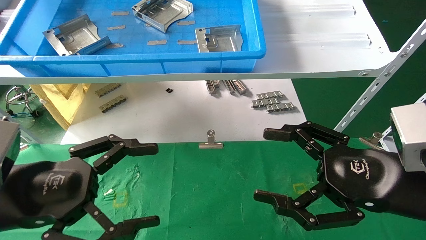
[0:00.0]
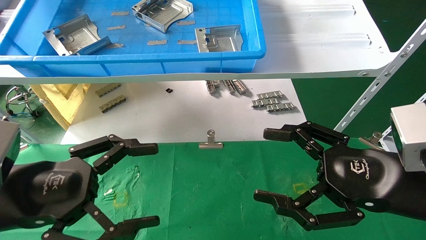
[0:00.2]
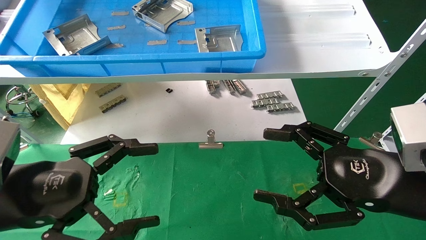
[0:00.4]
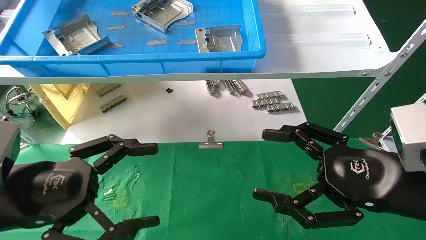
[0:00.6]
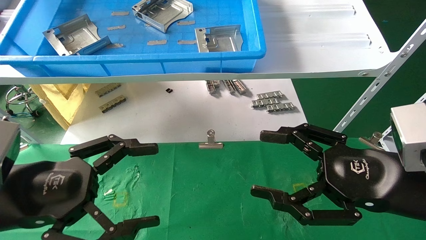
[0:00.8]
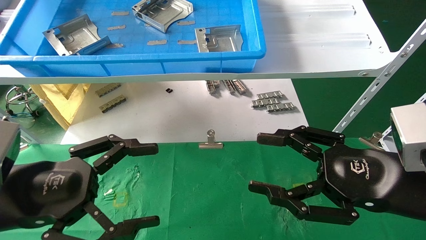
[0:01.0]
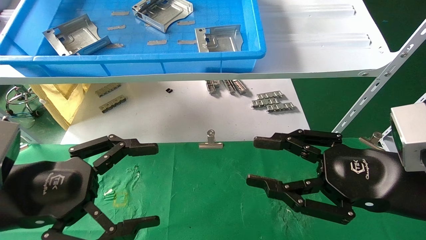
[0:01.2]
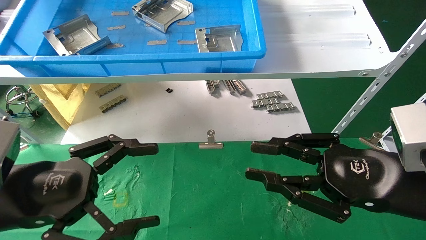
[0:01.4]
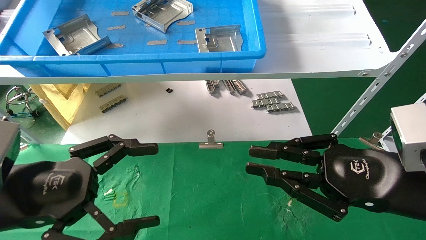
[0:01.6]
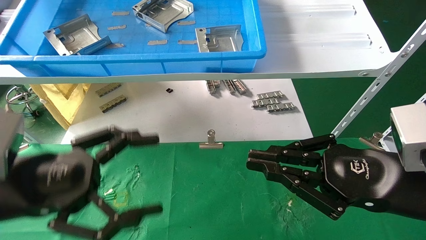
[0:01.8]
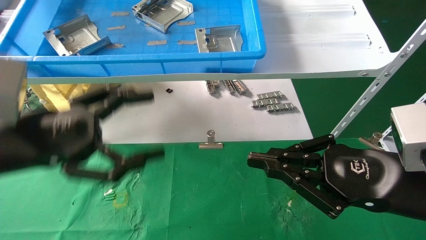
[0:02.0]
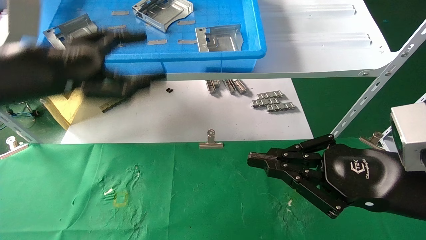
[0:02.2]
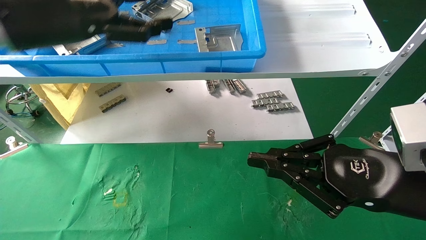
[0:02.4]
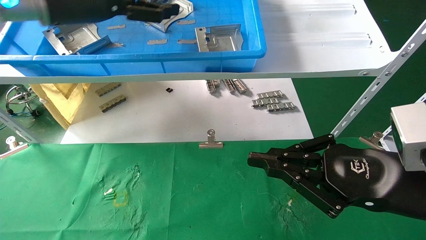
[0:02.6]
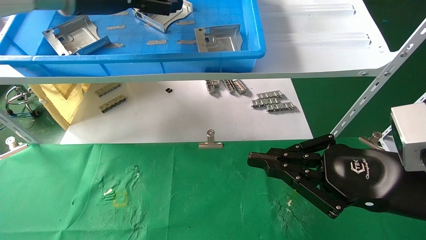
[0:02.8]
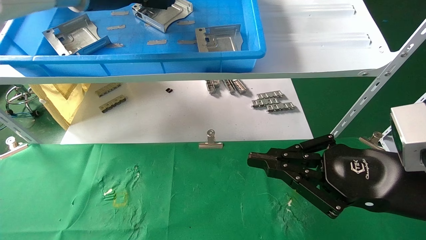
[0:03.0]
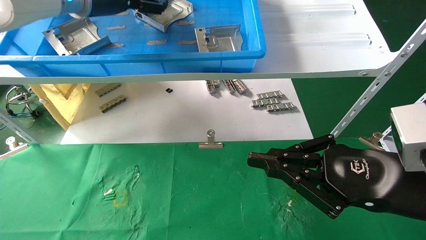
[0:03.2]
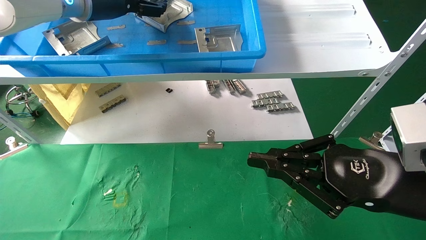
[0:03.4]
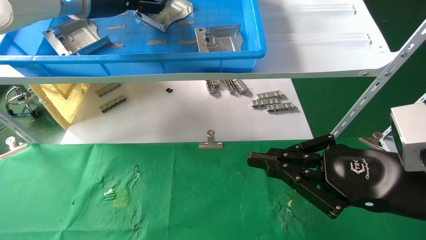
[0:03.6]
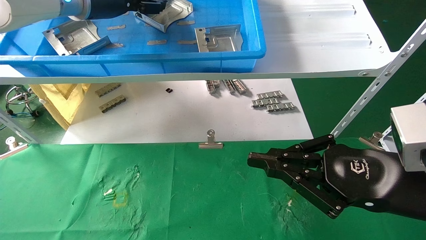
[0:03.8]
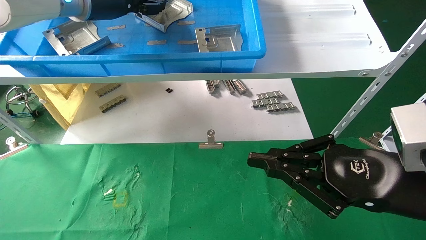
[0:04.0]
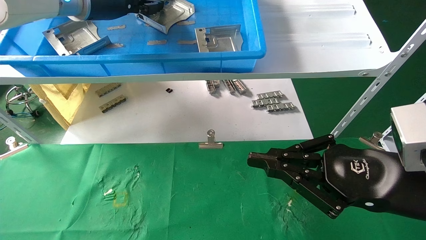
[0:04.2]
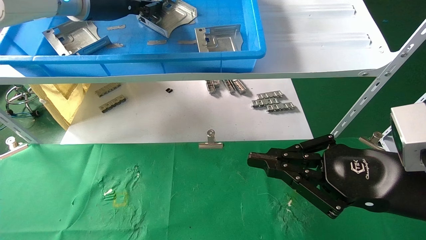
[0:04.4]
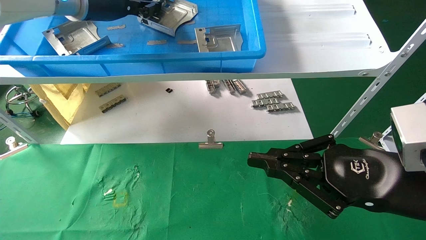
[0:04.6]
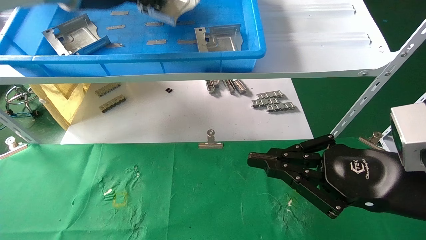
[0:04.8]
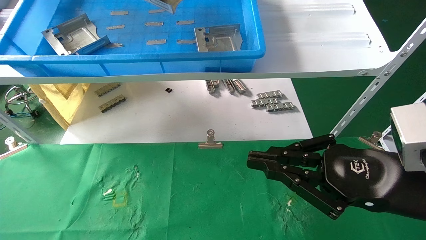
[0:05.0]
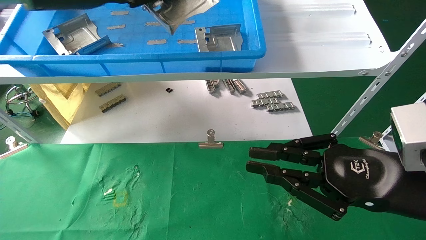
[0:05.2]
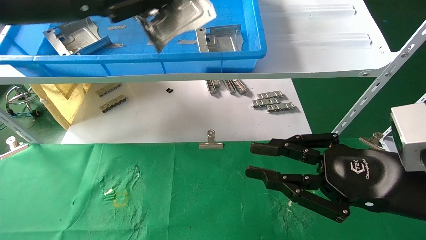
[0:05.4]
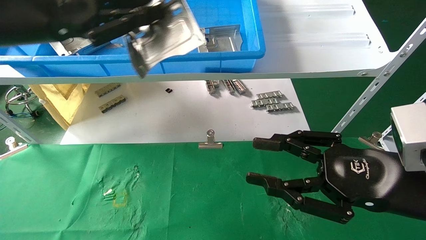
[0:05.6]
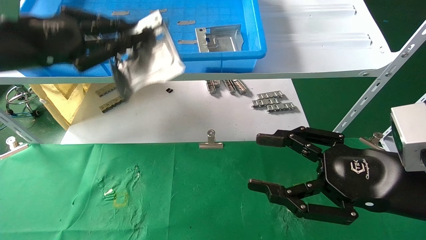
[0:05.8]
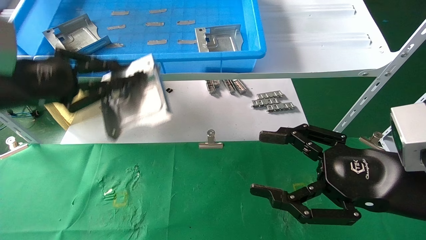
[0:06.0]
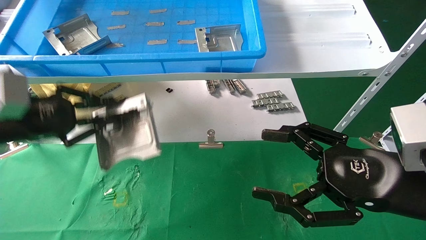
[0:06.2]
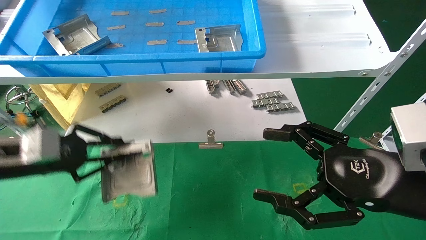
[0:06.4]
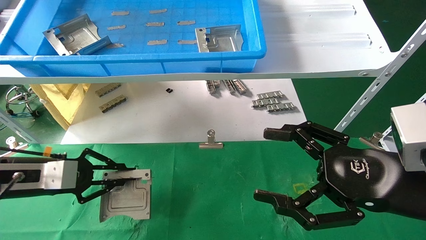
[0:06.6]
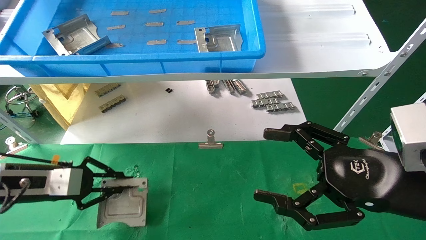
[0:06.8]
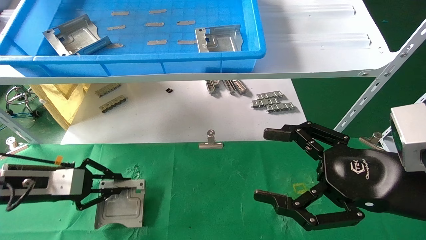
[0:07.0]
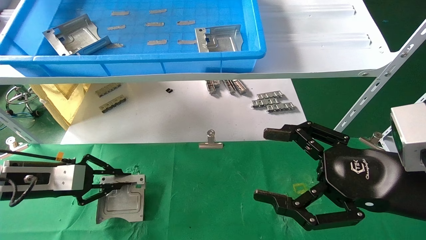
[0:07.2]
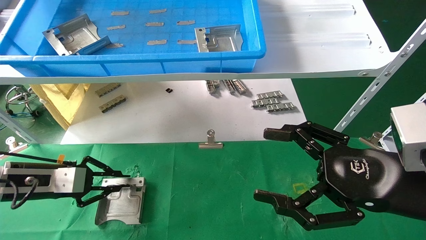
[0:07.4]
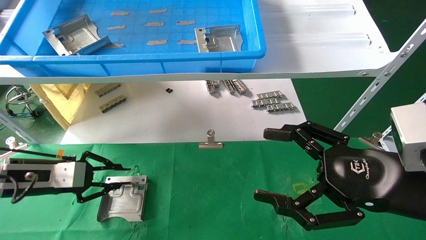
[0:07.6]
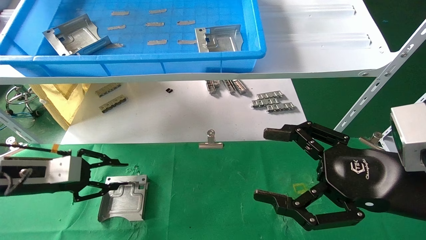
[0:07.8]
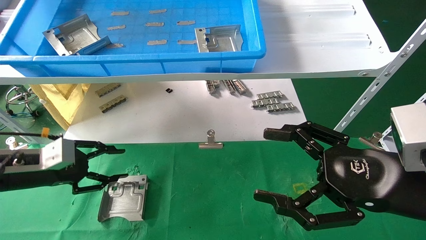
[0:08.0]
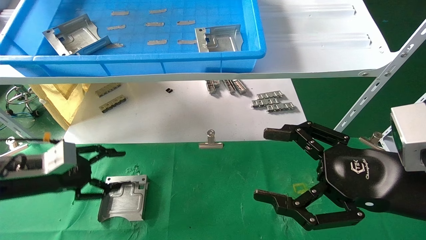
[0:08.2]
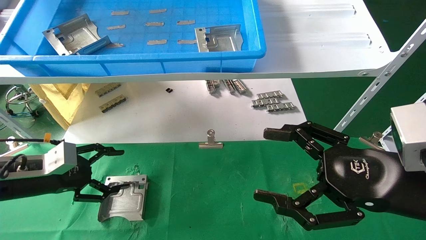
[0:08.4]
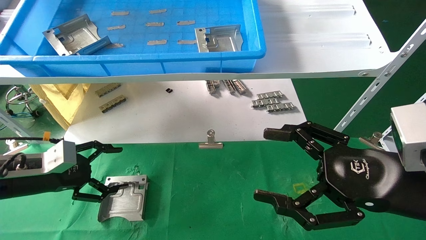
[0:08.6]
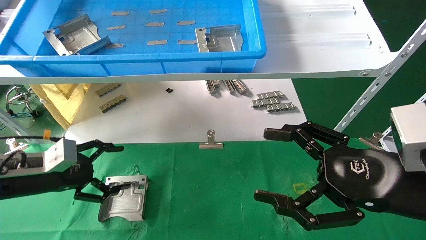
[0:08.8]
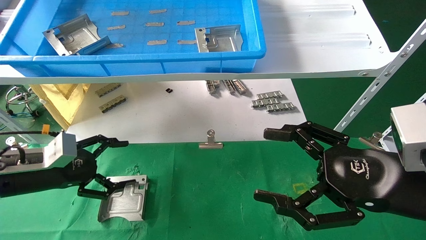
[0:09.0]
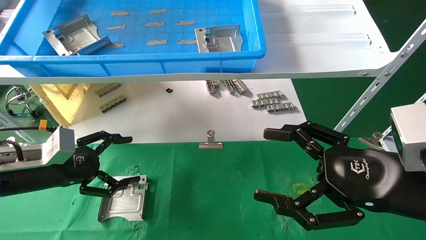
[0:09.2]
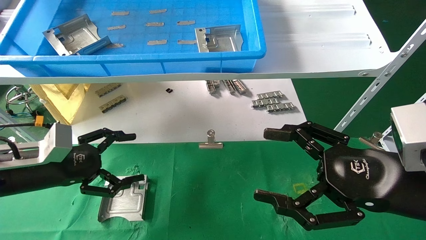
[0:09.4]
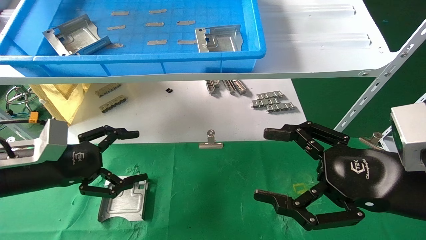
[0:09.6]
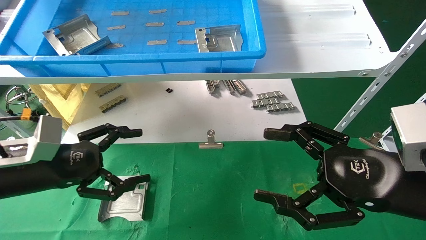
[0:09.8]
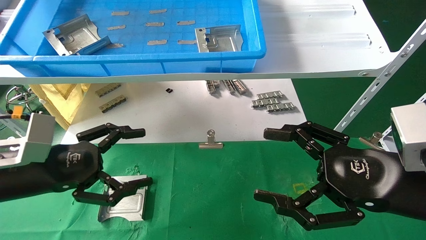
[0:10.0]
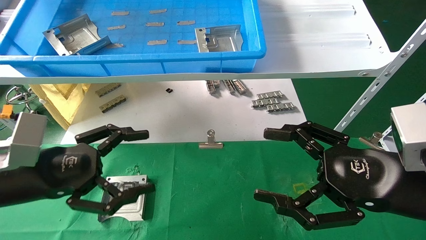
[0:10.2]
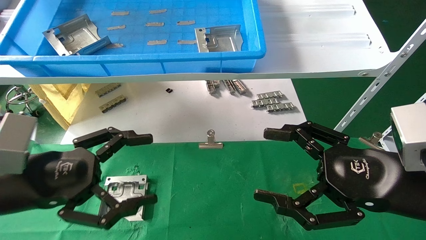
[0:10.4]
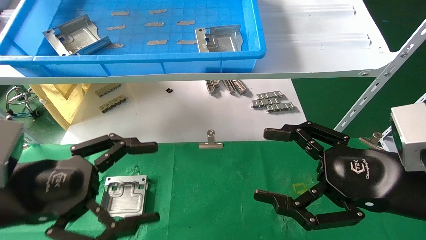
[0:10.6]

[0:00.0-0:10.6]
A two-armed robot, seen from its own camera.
Task of the whole recording: use the mechanical arm to pick up the parts and place them on the table.
Step, 2.2 to 4.4 s: Pick up the hard drive bracket from the feeding area.
Step, 4.6 to 7.6 s: Place the hard drive bracket into the box.
0.0 to 1.6 s: The right gripper closes its fingers.
1.6 to 3.0 s: The left gripper moves upward and forward, roughly 35 cm.
3.0 to 4.6 s: The left gripper closes.
4.6 to 6.0 s: The right gripper opens its fingers. The left gripper is displaced downward, backward and to the left by approximately 25 cm.
6.0 to 7.6 s: The left gripper heads downward, covering some 15 cm.
7.6 to 9.0 s: The left gripper opens.
9.0 to 10.6 s: The left gripper travels backward, to the right and upward by approximately 15 cm.

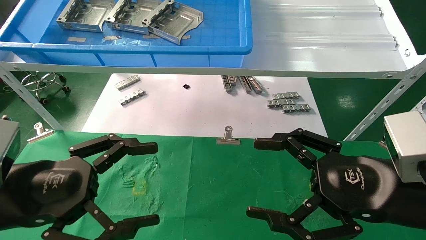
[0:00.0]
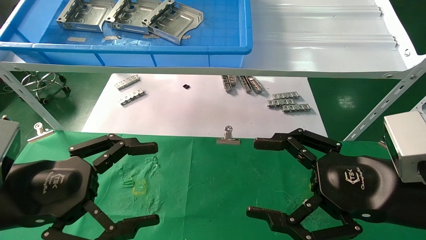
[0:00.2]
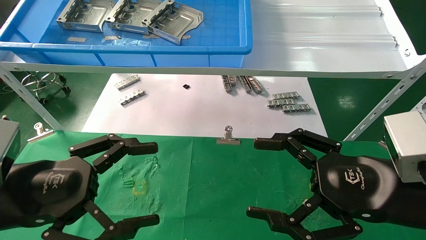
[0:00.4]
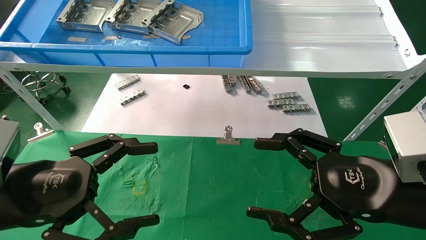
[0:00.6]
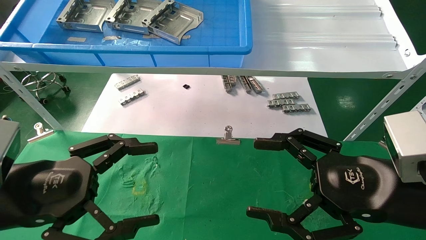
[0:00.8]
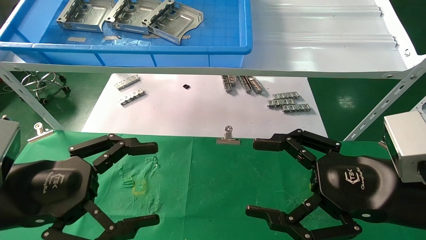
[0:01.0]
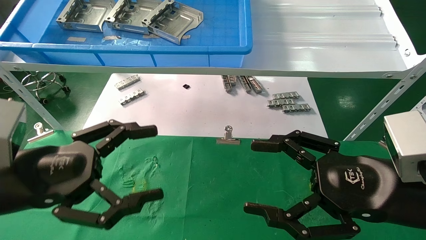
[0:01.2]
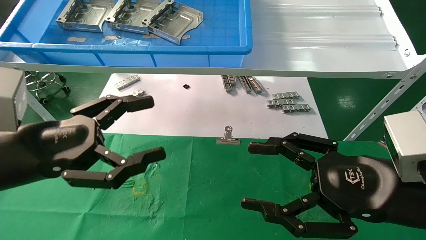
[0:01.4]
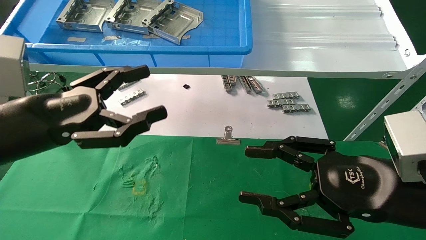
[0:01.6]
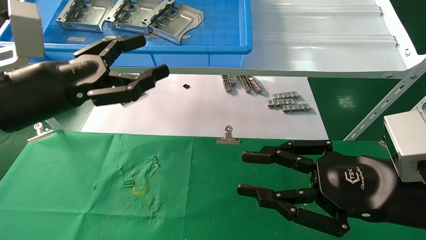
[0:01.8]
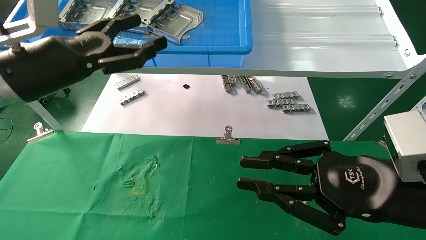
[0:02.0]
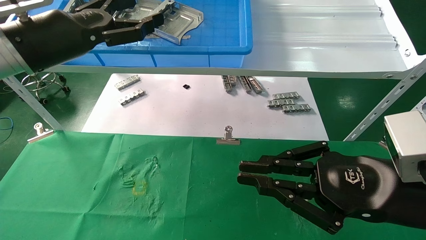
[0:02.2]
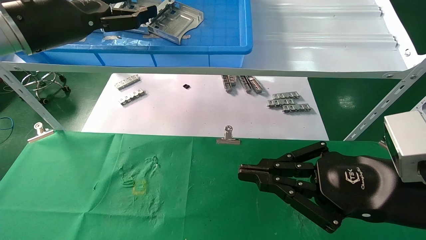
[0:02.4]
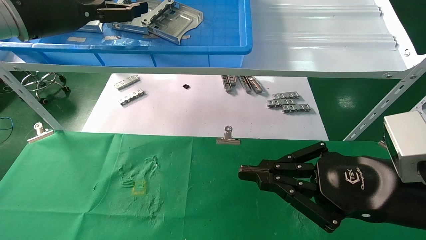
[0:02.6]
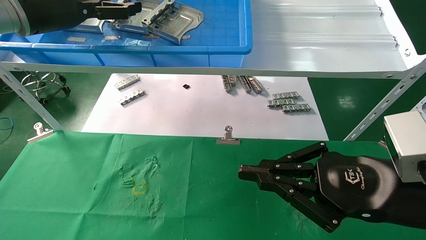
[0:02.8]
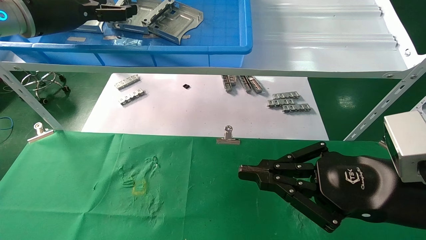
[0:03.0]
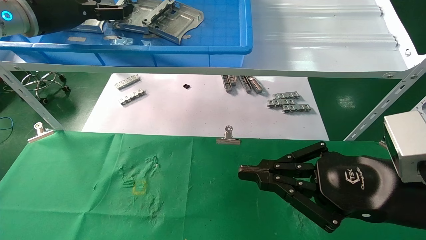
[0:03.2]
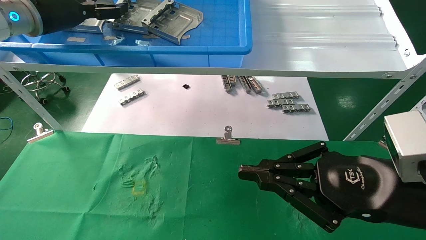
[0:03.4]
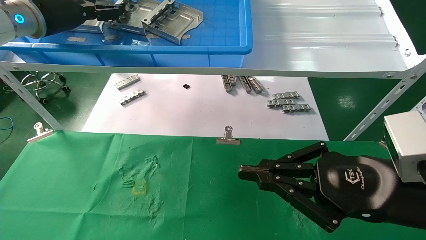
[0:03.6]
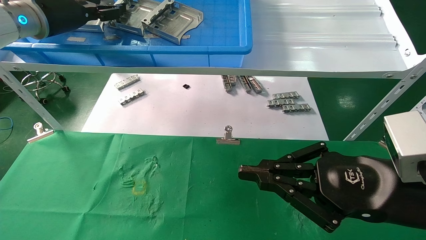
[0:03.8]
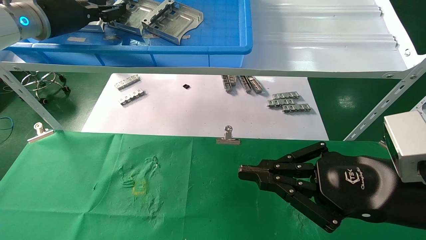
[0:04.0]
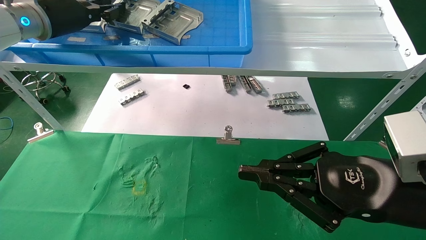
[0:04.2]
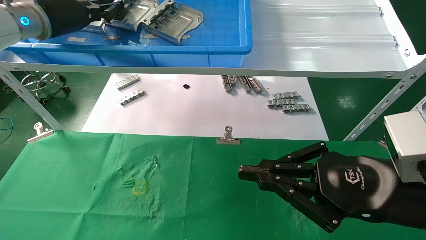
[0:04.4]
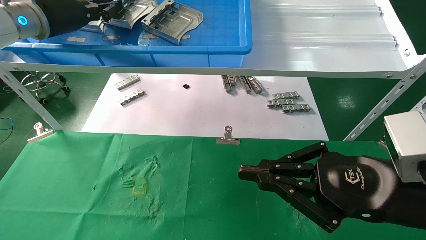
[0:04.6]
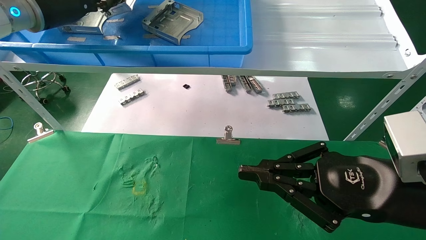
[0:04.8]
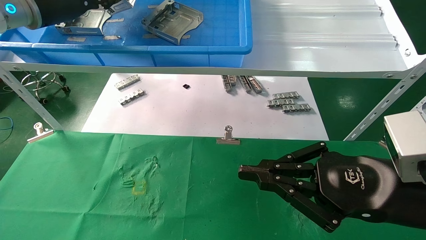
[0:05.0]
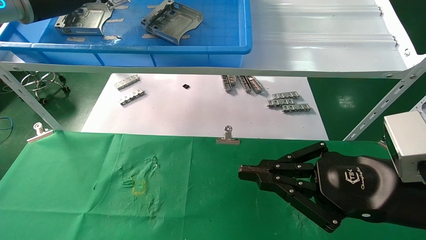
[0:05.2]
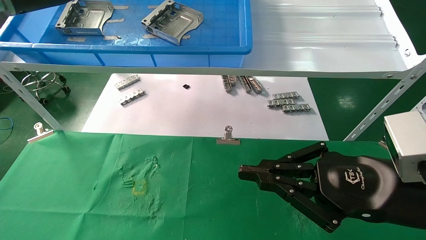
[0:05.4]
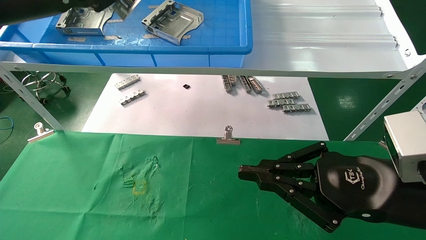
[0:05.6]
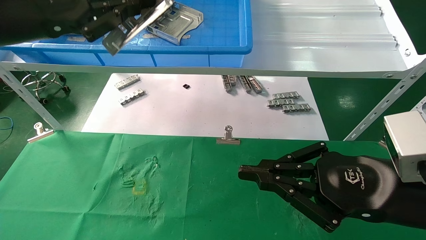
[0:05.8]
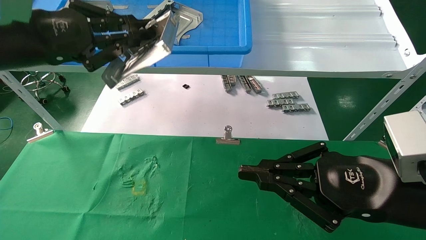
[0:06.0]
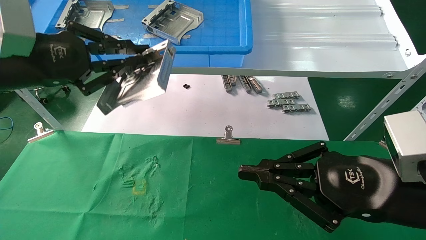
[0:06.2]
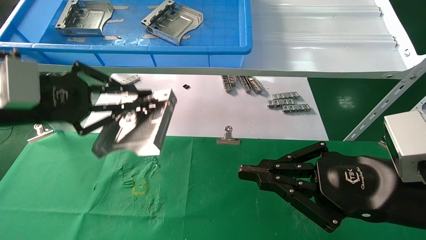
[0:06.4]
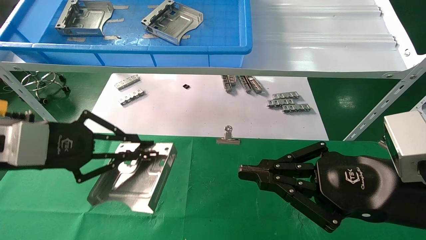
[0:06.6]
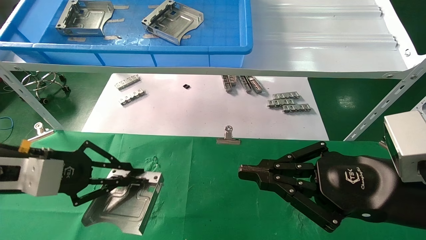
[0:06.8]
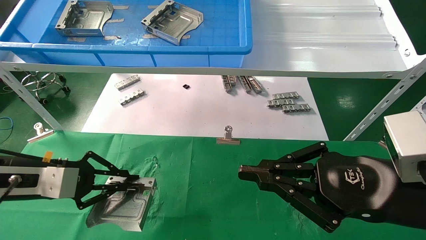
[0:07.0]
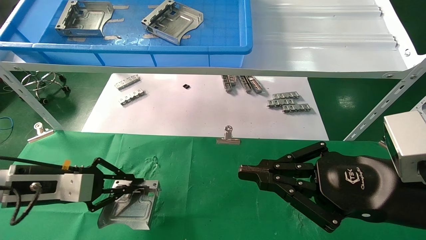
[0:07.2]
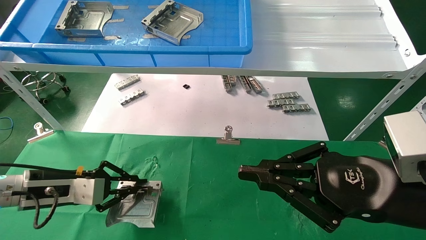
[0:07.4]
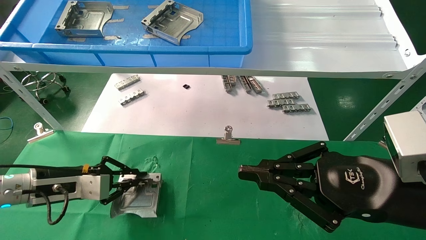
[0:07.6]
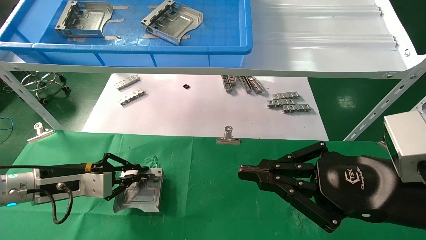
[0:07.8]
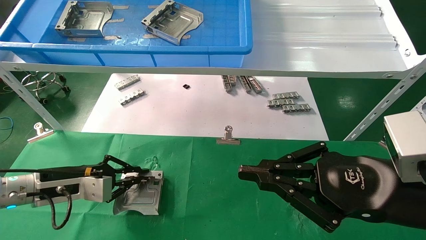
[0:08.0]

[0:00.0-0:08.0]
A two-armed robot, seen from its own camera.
Task of the whole recording: use the mechanical arm to pick up the parts and place them on the table.
Step, 1.2 to 4.6 s: Pick up the hard drive bracket from the feeding area.
0.0 to 1.6 s: The left gripper is displaced upward and forward by roughly 10 cm.
1.6 to 3.2 s: The right gripper closes. The left gripper is displaced forward and upward by some 25 cm.
3.2 to 4.8 s: The left gripper closes its fingers.
4.8 to 6.4 s: The left gripper shifts approximately 20 cm backward and downward.
6.4 to 8.0 s: The left gripper travels downward and forward by approximately 20 cm.
